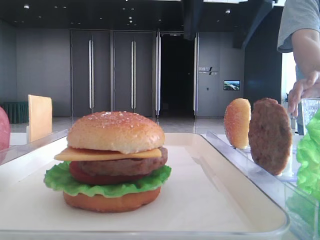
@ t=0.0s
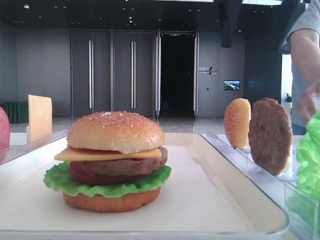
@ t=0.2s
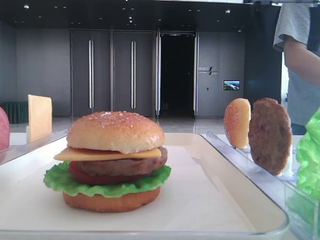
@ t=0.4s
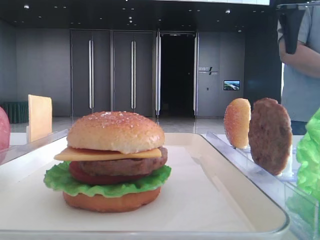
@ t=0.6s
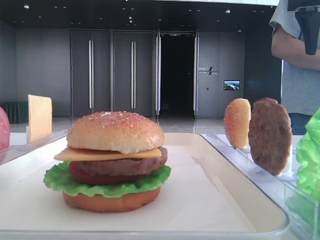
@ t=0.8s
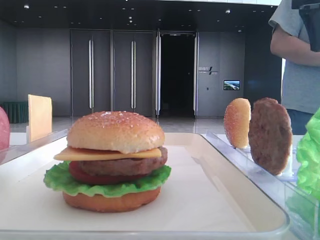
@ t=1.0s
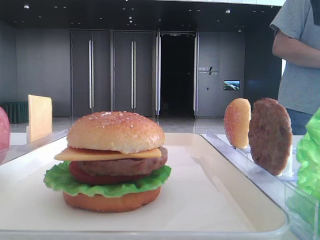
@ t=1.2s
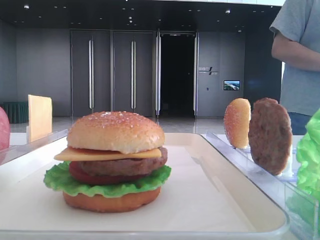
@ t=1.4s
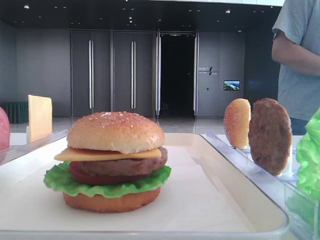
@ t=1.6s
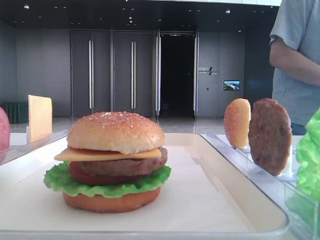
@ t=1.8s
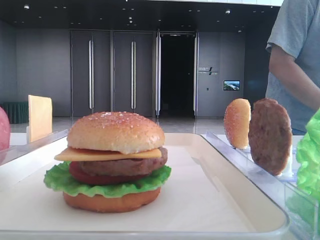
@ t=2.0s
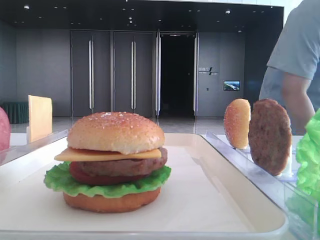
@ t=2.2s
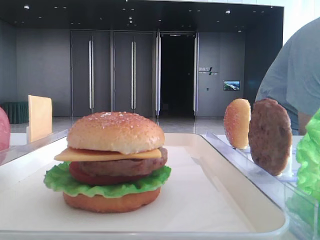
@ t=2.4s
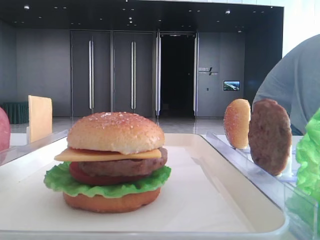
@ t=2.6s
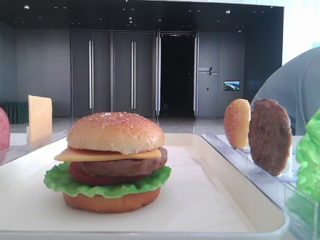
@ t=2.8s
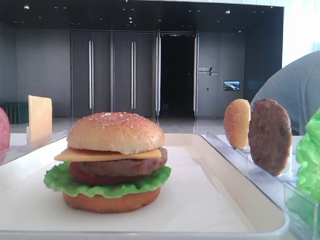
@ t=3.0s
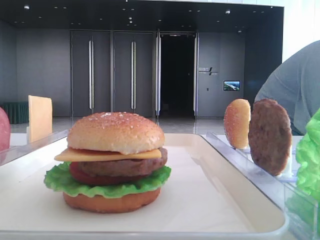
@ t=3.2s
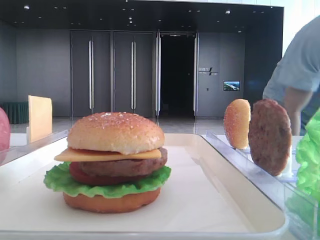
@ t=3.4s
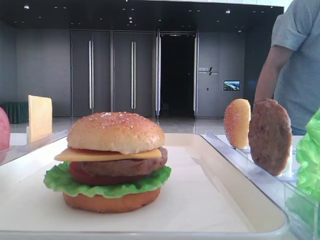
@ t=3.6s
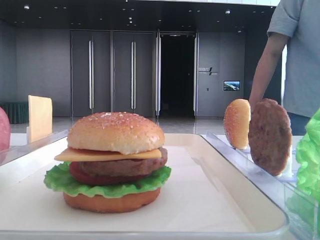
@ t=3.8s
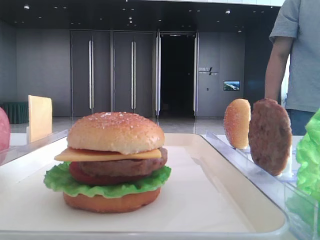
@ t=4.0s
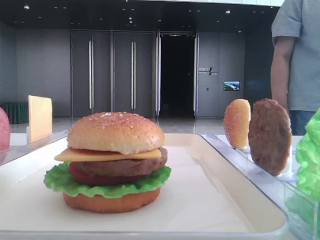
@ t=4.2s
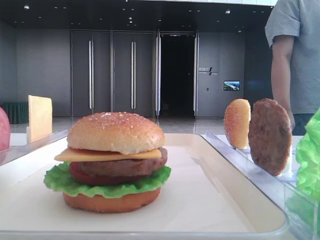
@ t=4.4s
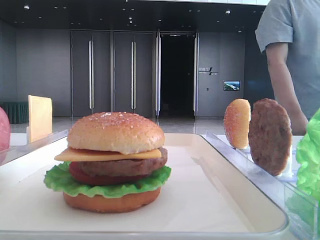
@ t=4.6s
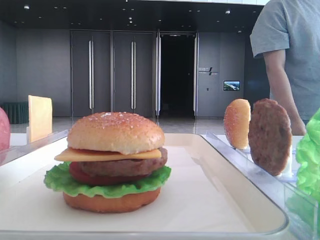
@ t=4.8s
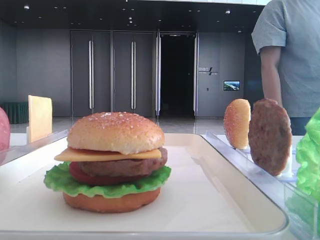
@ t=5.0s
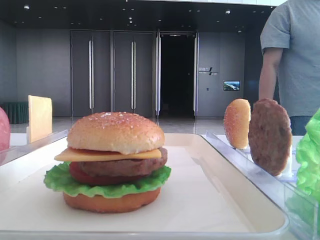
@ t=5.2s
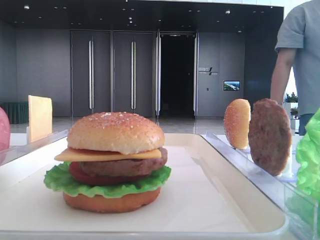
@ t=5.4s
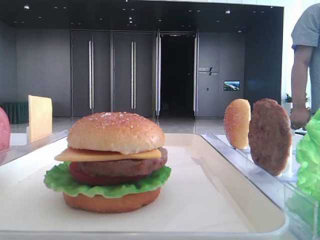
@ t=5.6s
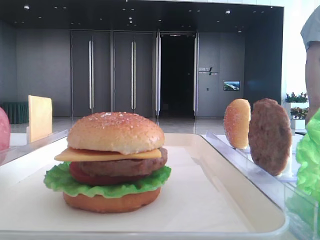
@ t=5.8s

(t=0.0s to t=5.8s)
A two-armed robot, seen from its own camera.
t=0.0s - t=1.4s: The right gripper moves to the right and upward, roughly 20 cm.
t=1.4s - t=2.8s: The right gripper is displaced backward by some 35 cm.
t=2.8s - t=4.4s: The right gripper travels downward by approximately 10 cm.
t=4.4s - t=5.8s: Both grippers stay about where they are.

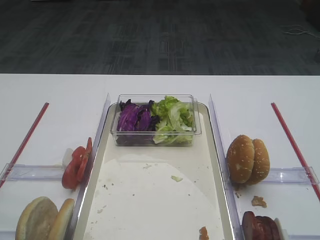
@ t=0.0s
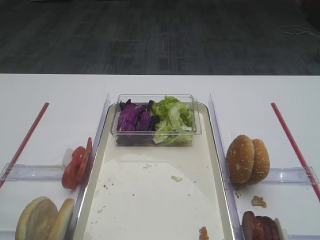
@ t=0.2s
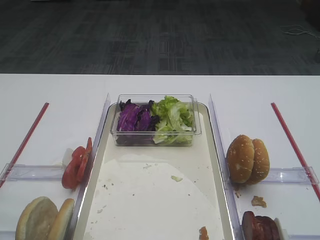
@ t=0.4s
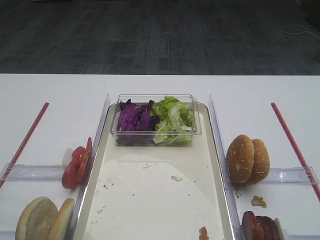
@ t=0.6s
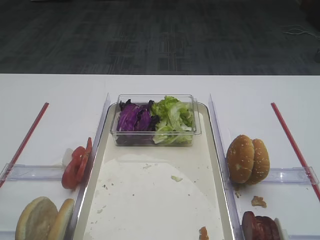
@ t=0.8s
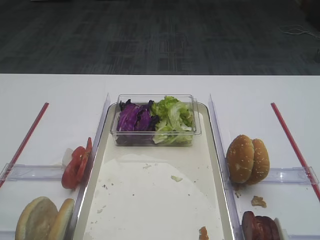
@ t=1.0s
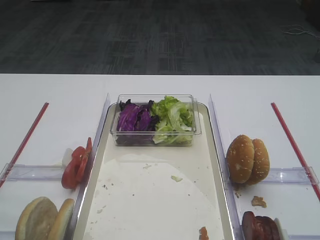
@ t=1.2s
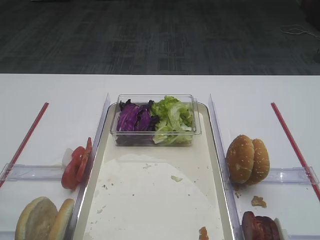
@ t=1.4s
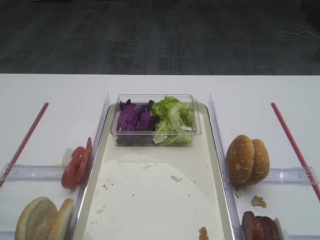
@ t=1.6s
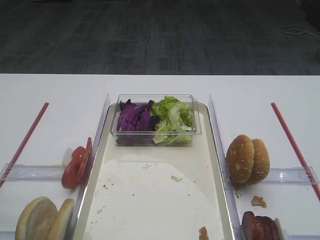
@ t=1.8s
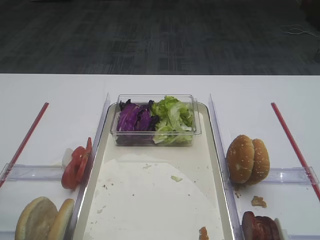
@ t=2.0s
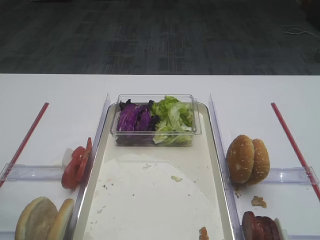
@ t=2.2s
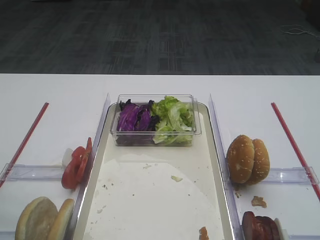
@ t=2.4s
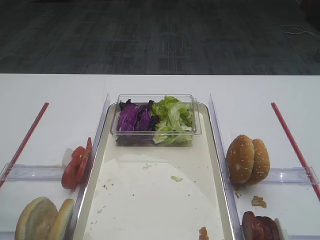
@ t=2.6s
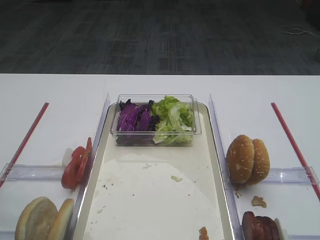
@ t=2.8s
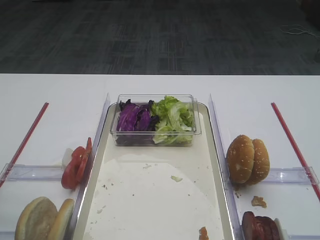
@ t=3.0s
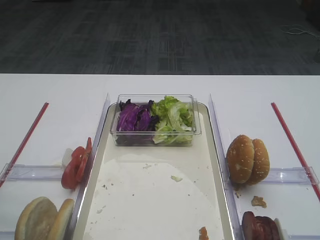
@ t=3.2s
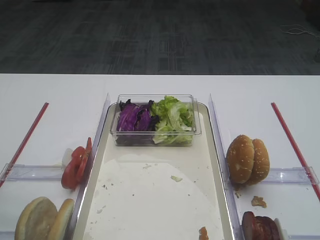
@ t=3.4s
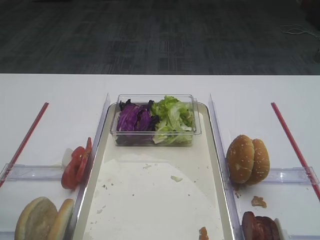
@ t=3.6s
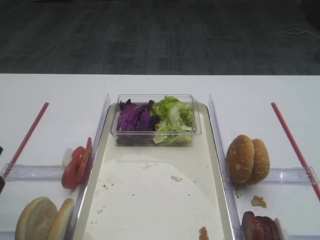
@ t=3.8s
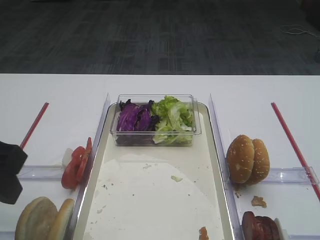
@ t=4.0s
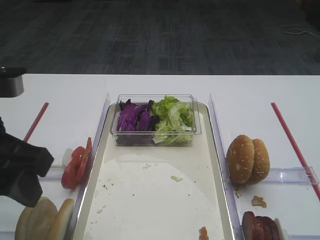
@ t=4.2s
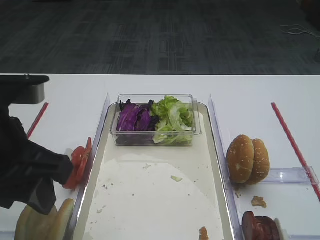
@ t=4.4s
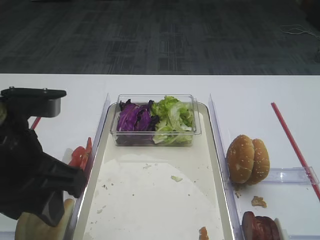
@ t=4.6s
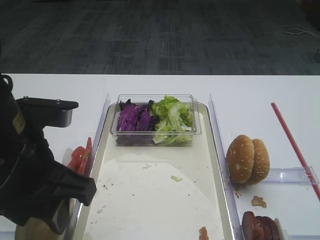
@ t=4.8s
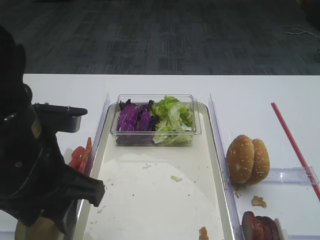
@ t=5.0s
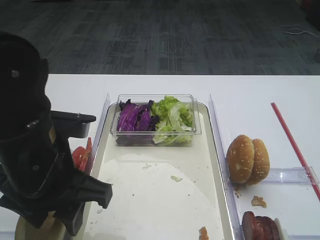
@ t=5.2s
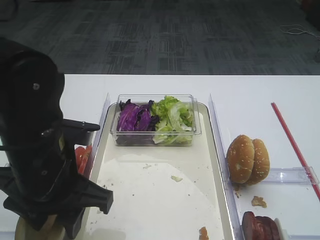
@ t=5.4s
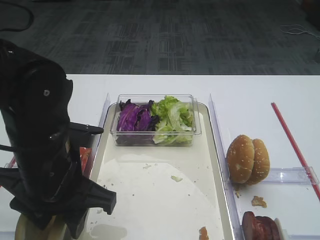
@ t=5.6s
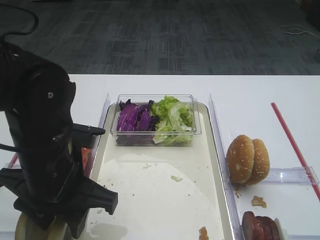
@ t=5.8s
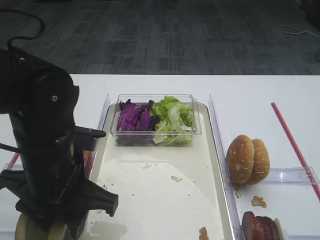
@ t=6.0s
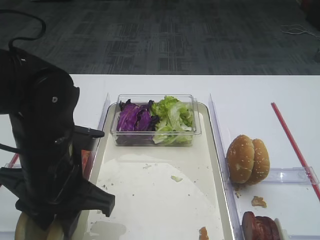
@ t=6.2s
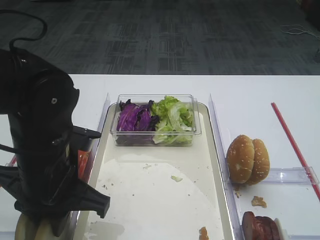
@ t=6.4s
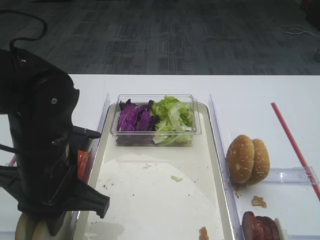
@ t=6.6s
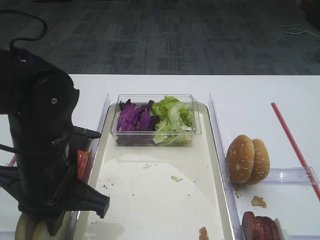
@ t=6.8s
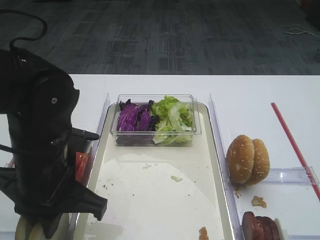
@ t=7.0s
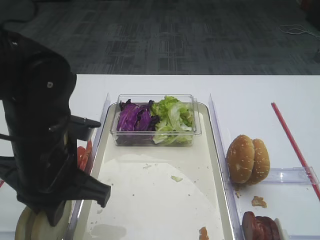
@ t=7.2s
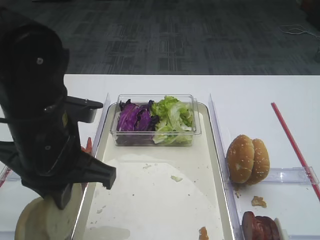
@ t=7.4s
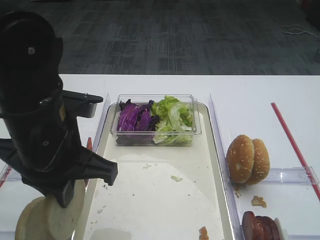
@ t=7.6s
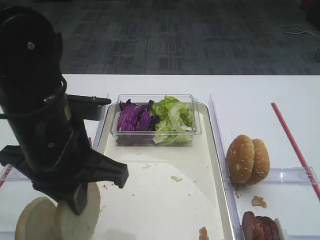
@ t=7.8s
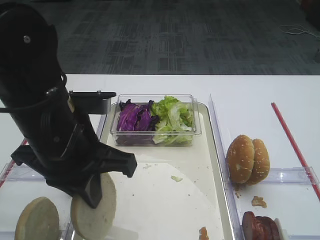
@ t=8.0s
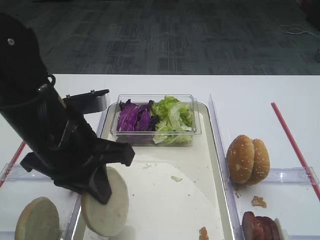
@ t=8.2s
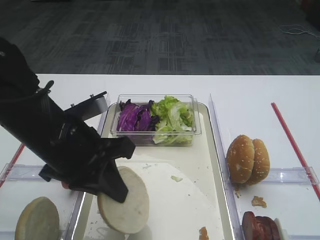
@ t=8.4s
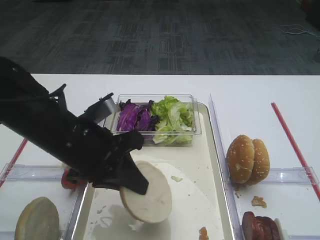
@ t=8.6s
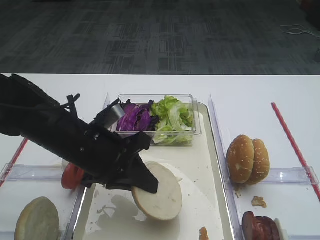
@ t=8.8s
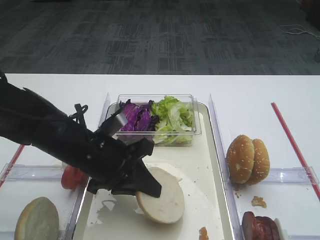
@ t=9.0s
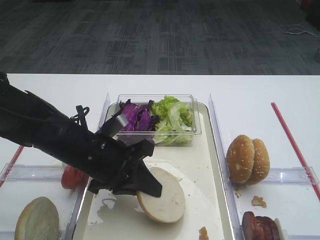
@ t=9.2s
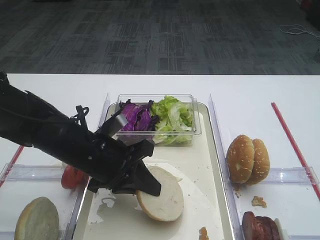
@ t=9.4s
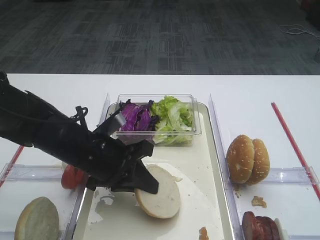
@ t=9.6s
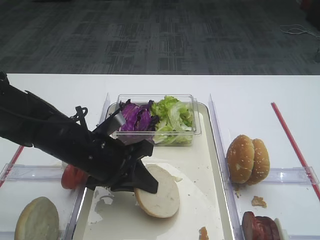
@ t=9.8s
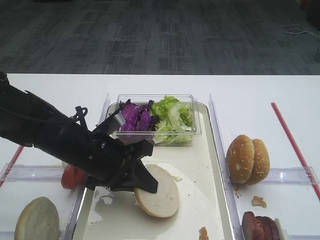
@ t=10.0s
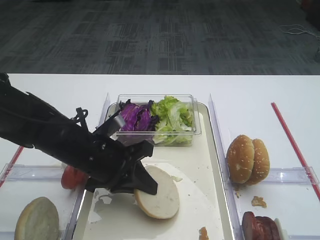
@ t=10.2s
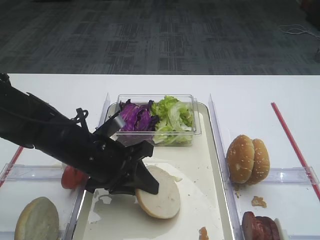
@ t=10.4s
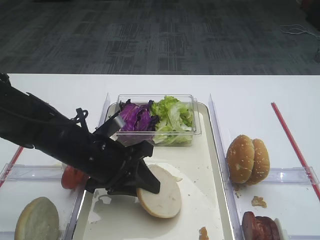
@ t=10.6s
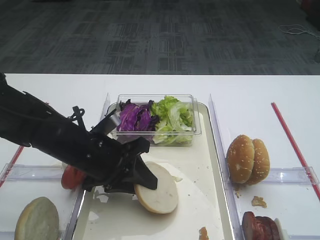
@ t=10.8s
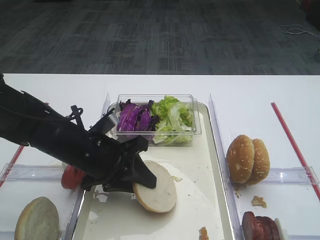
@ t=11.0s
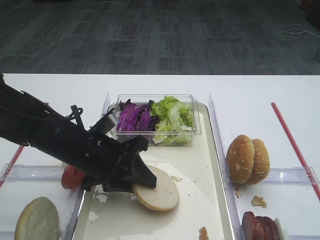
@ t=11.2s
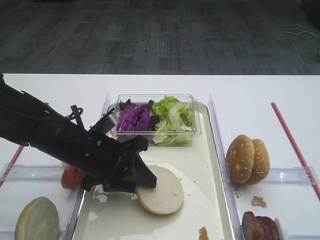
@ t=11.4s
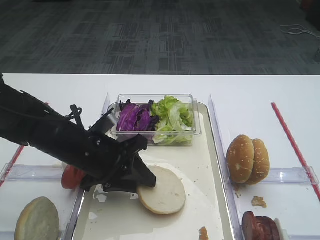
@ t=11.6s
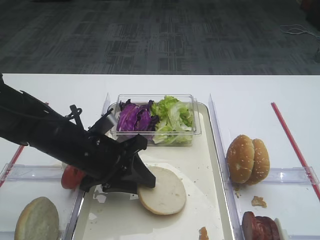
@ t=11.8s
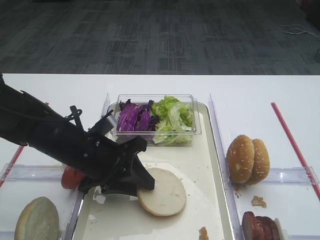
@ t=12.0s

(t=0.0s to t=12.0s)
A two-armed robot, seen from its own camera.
Step, t=0.0s - t=7.2s: Pick up the bread slice with the left gripper.
t=3.0s - t=4.4s: The left gripper goes about 10 cm to the right.
t=4.4s - t=6.0s: The left gripper goes approximately 10 cm downward and to the right.
t=6.0s - t=7.6s: The left gripper closes its fingers.
t=7.6s - t=9.0s: The left gripper heads downward, covering some 10 cm.
t=9.0s - t=10.4s: The grippers move only a little.
t=10.4s - t=12.0s: Both grippers stay about where they are.

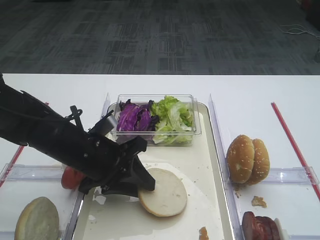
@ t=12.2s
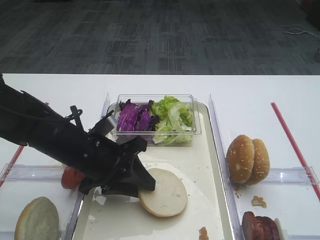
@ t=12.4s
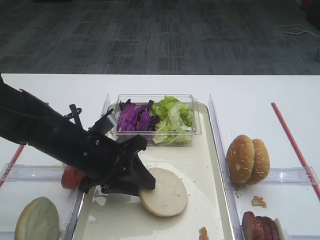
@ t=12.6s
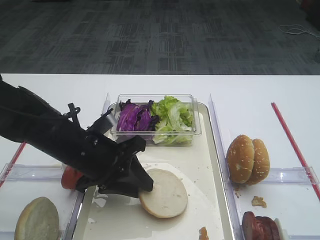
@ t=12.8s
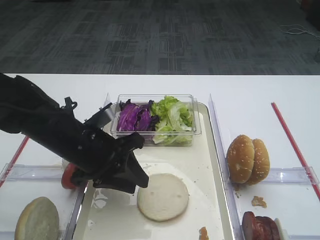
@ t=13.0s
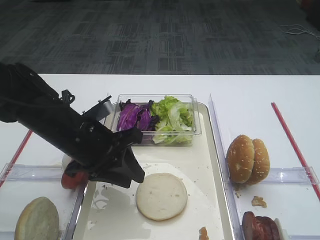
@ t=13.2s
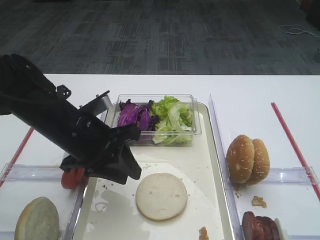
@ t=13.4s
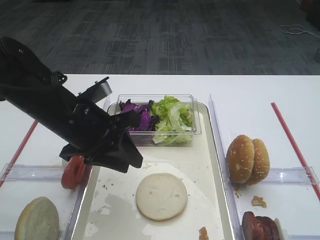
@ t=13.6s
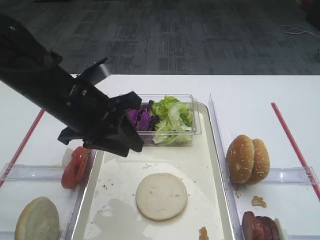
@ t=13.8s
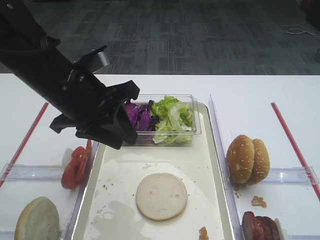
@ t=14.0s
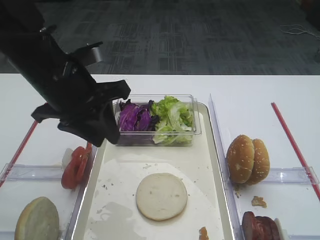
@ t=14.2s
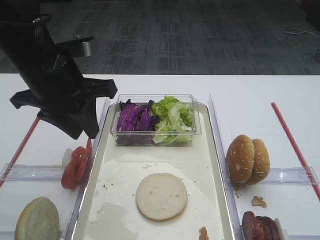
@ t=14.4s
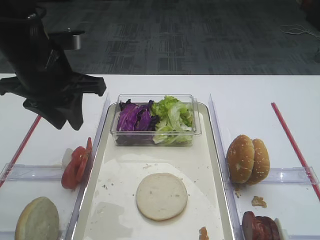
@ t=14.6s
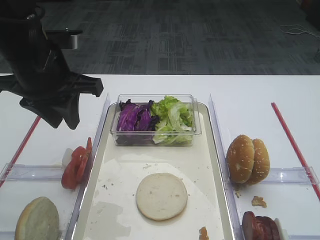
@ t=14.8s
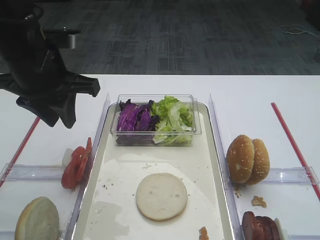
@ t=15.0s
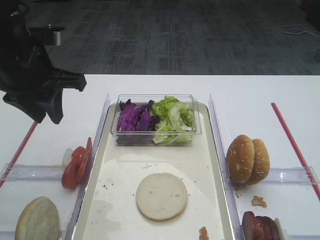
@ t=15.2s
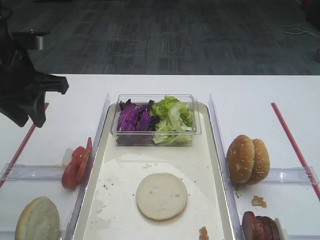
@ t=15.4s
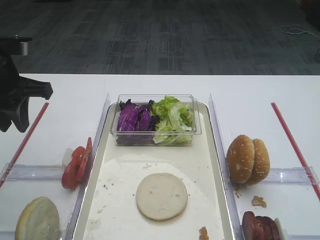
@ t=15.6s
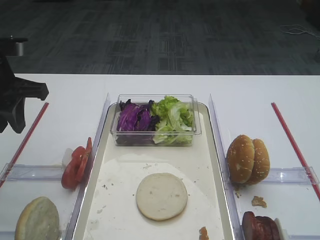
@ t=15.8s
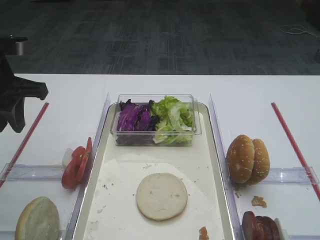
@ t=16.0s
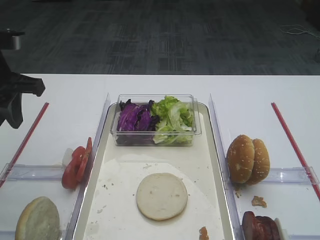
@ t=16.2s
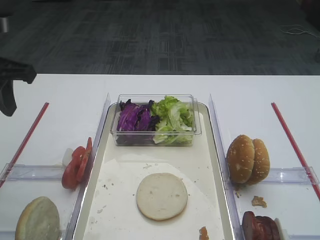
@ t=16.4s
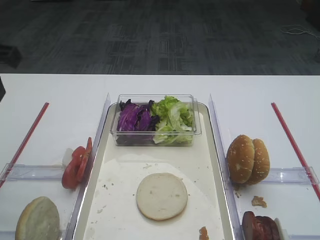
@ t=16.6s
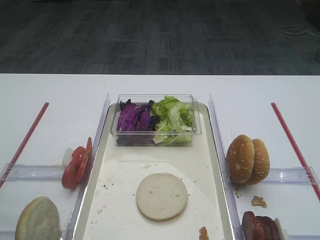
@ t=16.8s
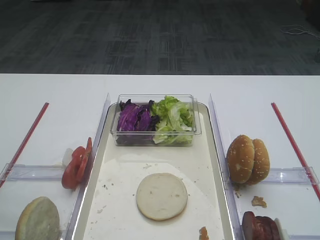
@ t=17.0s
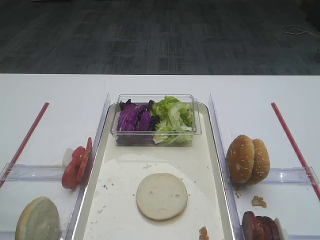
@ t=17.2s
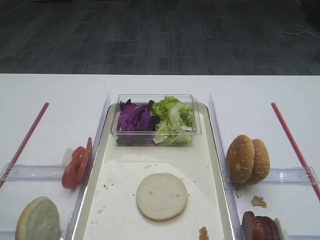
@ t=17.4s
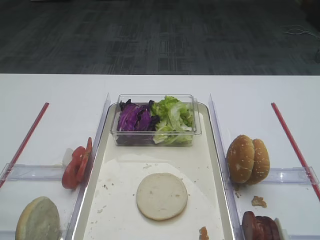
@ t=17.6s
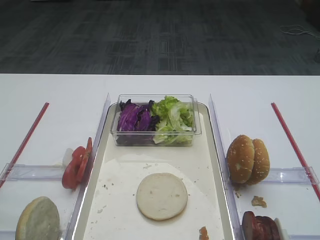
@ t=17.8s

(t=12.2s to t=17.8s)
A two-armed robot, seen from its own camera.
t=12.2s - t=13.6s: The left gripper moves upward, some 5 cm.
t=13.6s - t=15.0s: The left gripper travels upward by about 10 cm.
t=15.0s - t=16.4s: The left gripper goes approximately 10 cm to the left.
t=16.4s - t=17.8s: The left gripper shifts some 25 cm backward.
